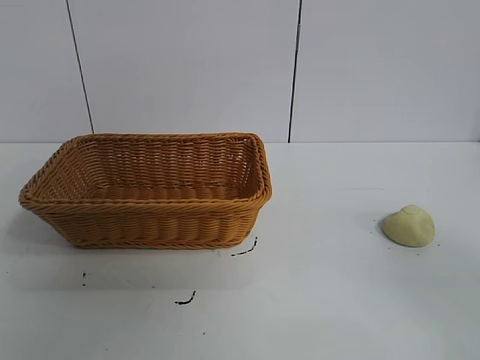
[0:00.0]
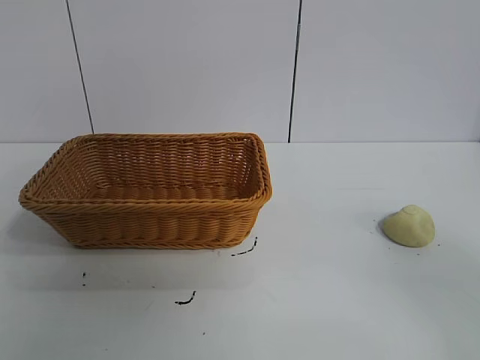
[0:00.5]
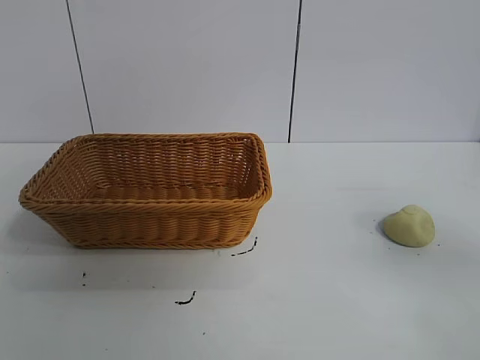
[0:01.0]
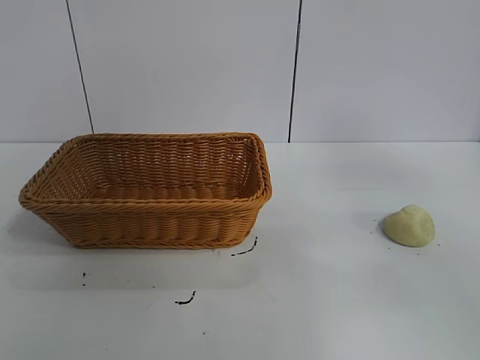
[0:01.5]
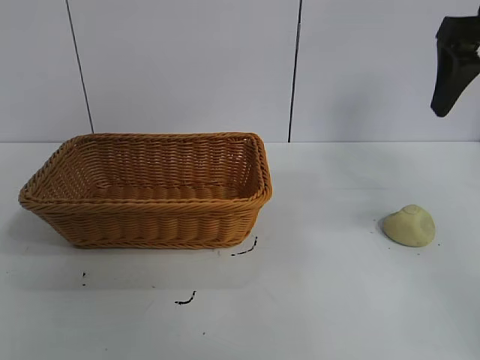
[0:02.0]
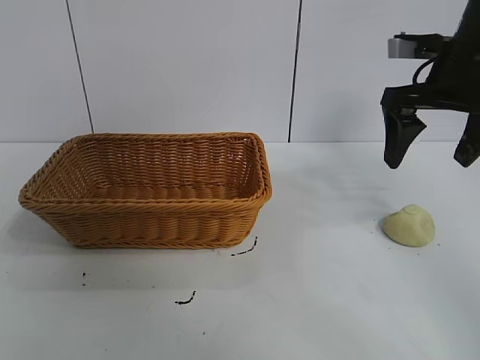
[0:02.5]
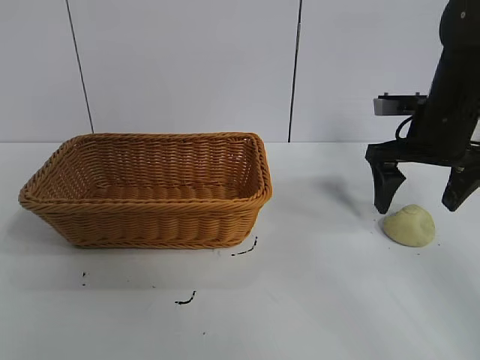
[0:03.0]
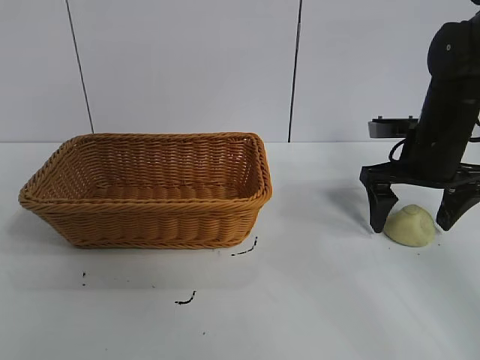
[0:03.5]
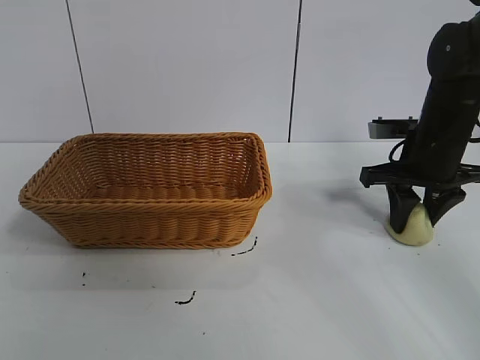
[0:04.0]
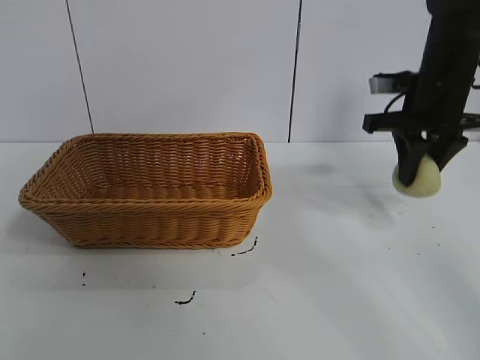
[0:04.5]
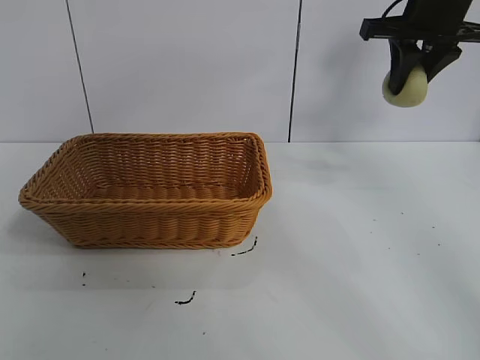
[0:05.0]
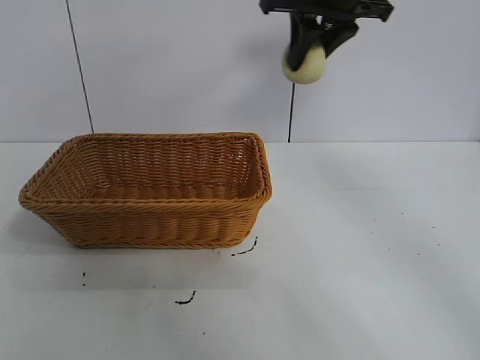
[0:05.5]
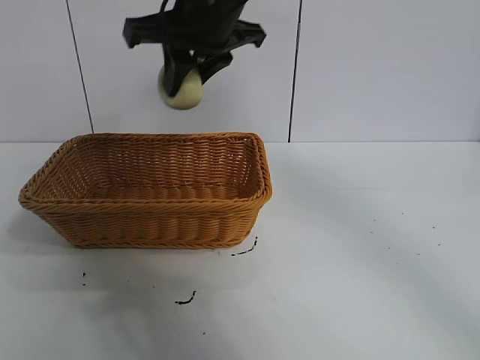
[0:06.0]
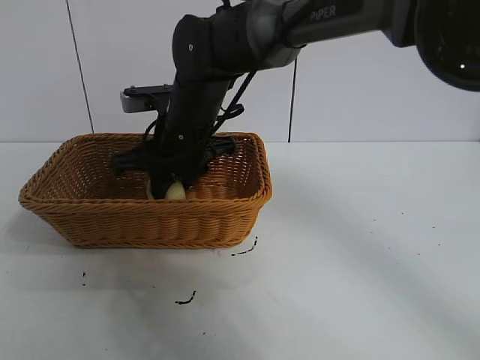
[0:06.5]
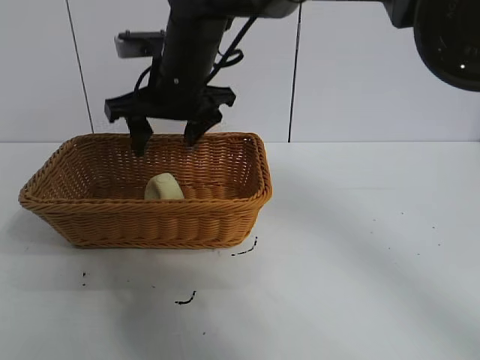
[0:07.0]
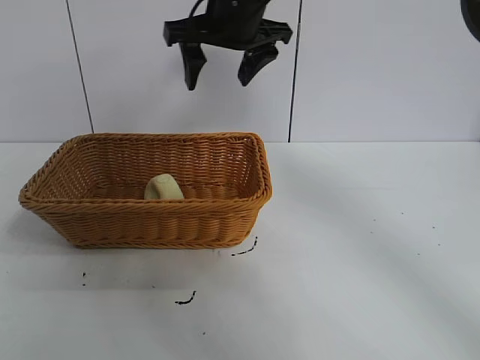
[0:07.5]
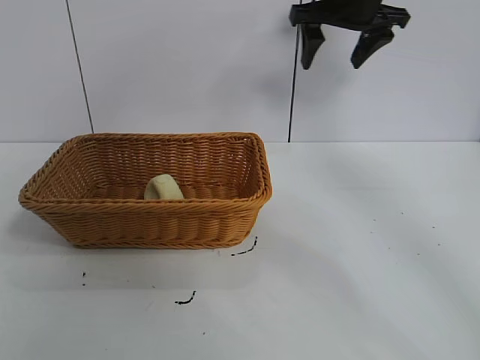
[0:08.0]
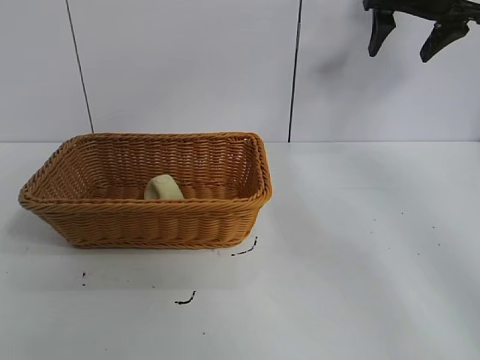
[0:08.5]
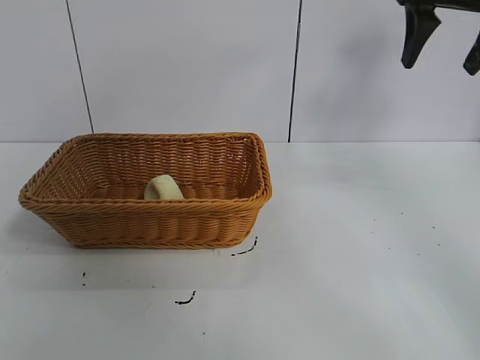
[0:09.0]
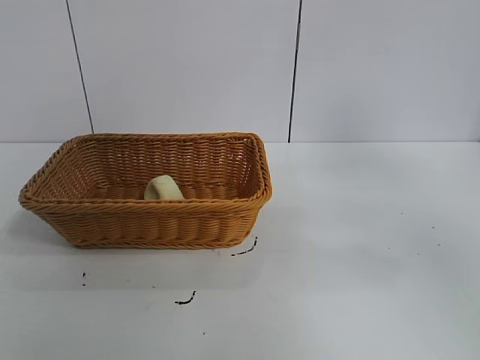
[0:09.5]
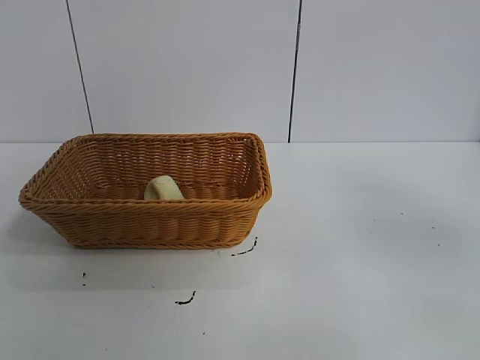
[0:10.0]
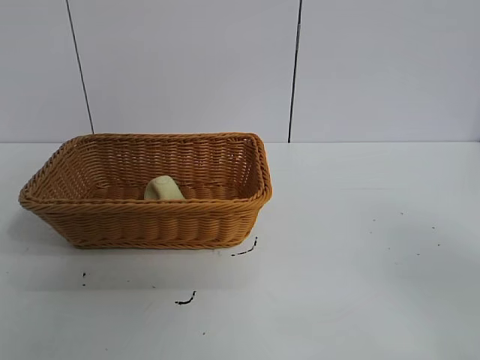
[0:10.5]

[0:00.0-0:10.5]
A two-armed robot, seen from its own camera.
Task of the whole recording: pick up the egg yolk pastry and put it into the basket.
Step, 0:01.0 to 0:04.0: Grasp egg yolk pastry with right gripper.
Step, 0:04.5 to 0:06.5: Place the egg yolk pastry in the basket with right gripper.
